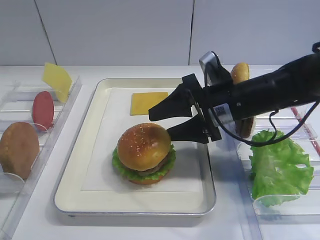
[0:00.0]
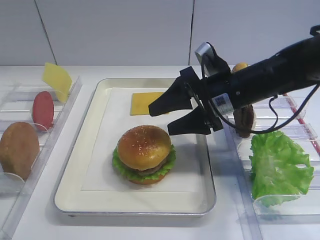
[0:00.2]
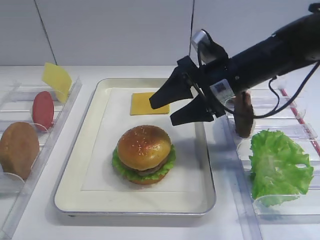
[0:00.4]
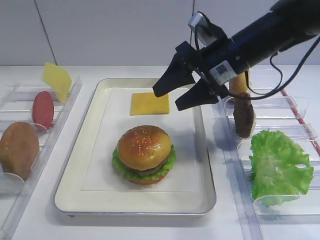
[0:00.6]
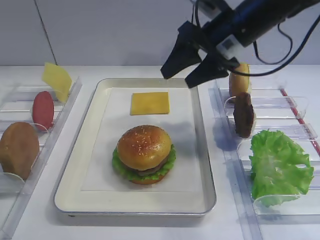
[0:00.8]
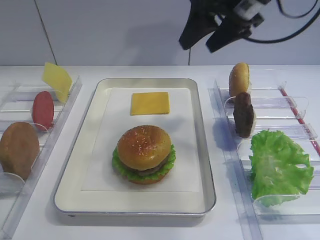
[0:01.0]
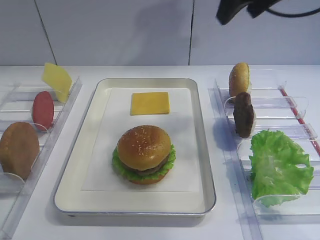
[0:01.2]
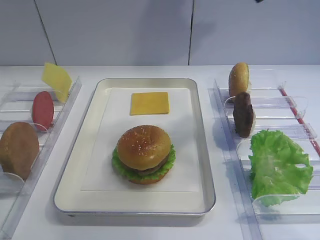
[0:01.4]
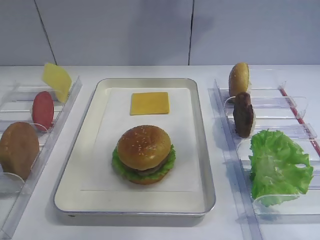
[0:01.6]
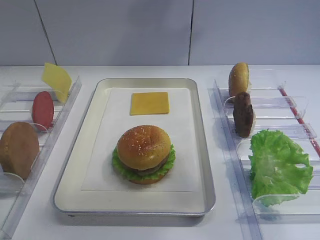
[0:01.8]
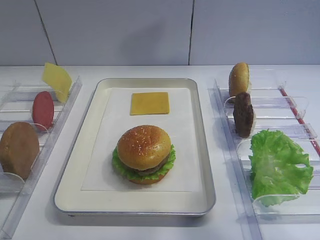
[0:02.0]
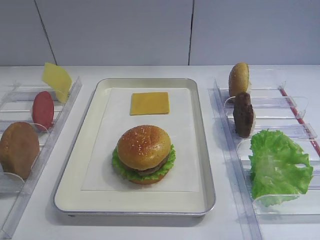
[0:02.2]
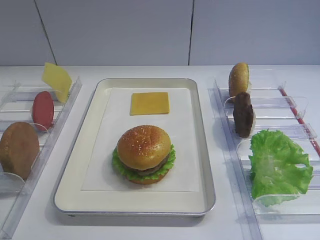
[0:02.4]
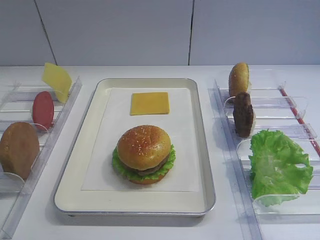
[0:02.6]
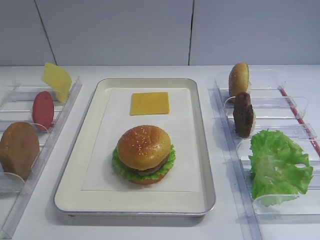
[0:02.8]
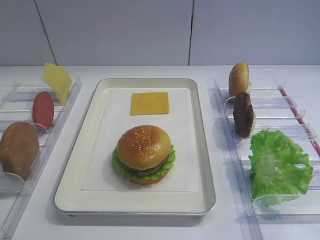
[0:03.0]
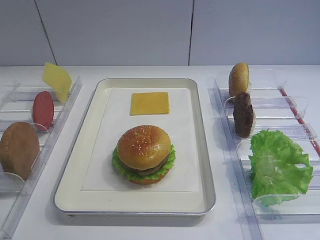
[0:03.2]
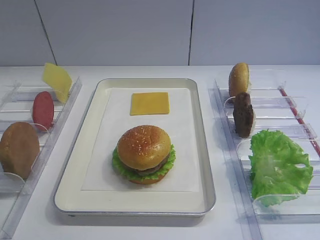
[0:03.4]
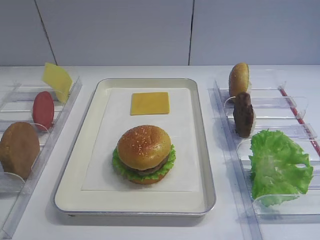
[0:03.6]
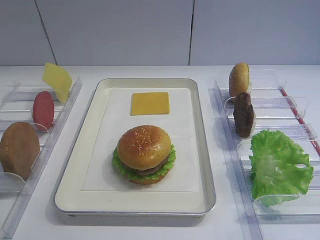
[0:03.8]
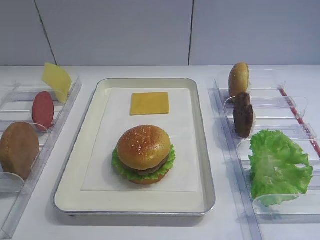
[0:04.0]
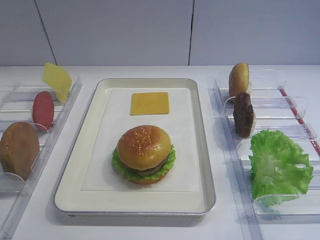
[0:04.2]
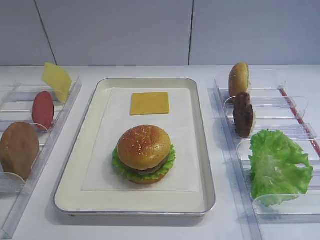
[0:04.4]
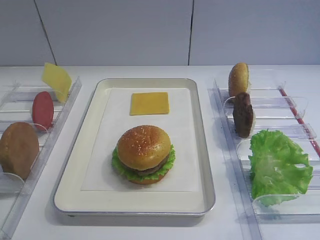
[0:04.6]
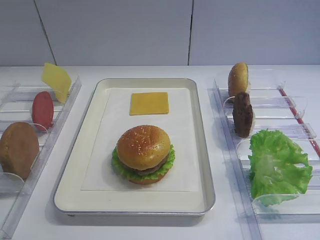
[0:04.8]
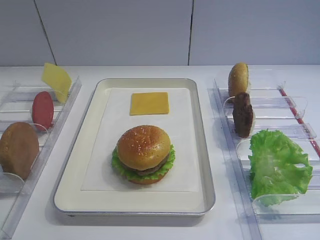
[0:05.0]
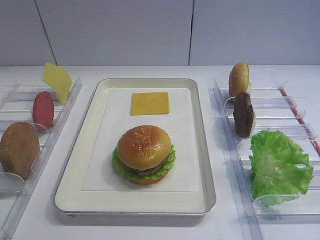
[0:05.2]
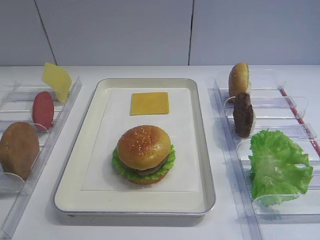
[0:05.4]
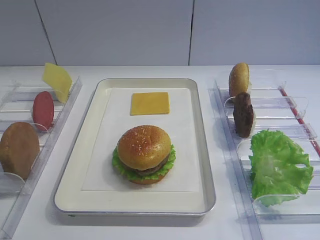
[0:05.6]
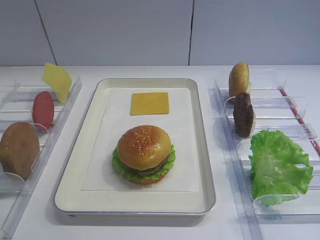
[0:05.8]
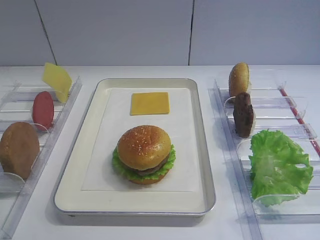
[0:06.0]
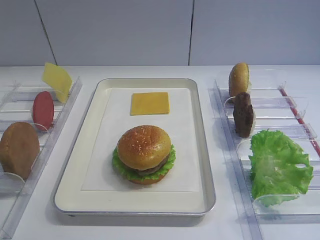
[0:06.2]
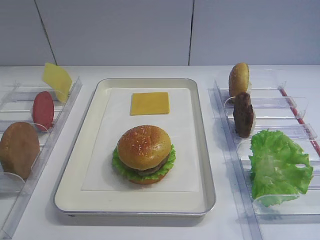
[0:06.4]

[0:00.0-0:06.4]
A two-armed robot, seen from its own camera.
0:00.0 to 0:01.6: The right gripper heads upward, covering some 30 cm.
0:01.6 to 0:03.2: The right gripper travels backward and downward by roughly 35 cm.

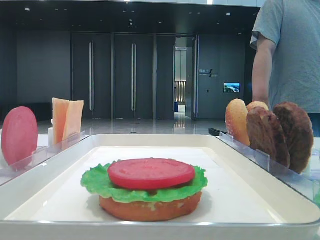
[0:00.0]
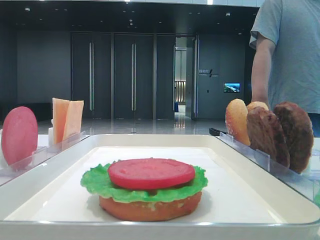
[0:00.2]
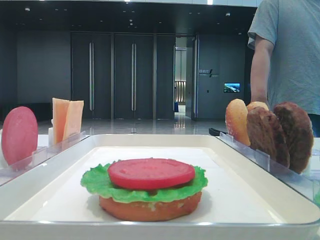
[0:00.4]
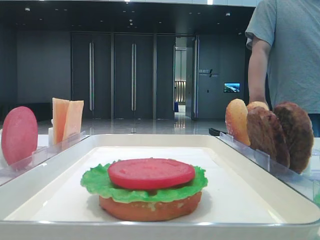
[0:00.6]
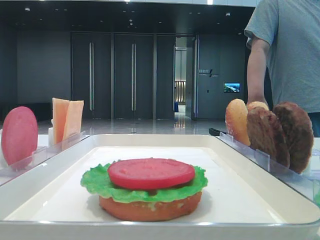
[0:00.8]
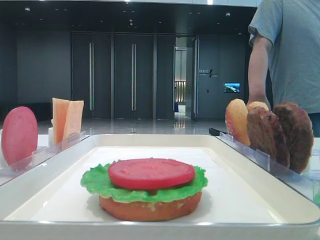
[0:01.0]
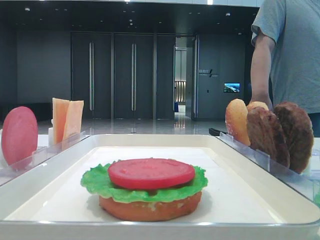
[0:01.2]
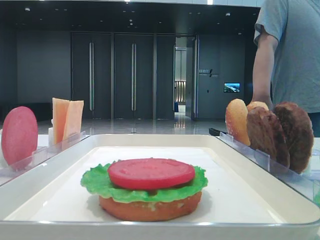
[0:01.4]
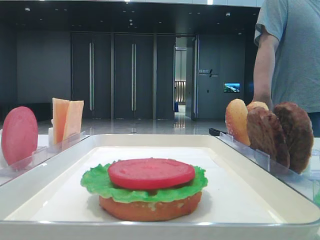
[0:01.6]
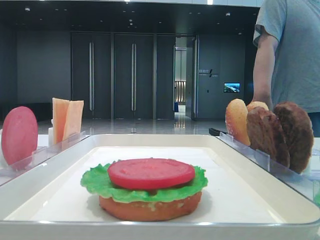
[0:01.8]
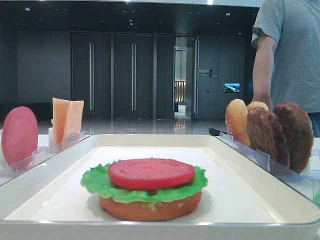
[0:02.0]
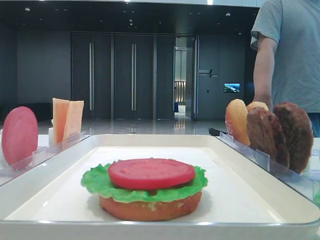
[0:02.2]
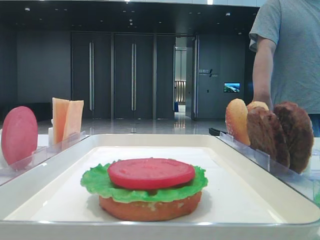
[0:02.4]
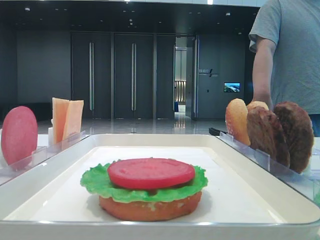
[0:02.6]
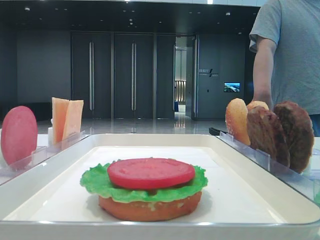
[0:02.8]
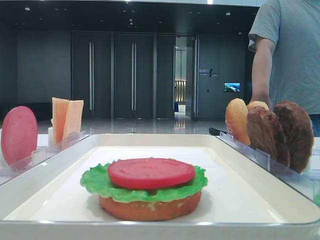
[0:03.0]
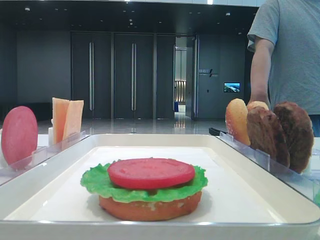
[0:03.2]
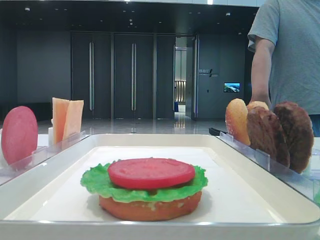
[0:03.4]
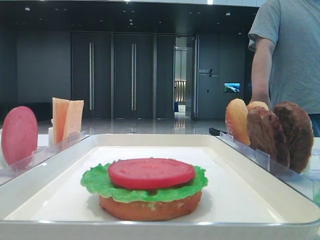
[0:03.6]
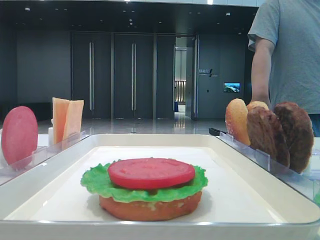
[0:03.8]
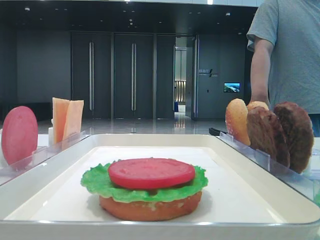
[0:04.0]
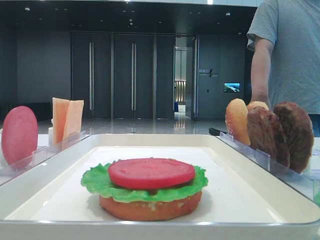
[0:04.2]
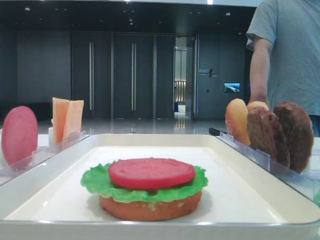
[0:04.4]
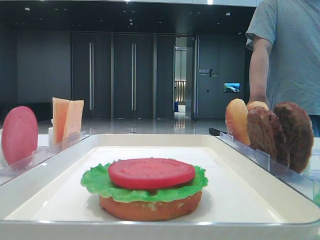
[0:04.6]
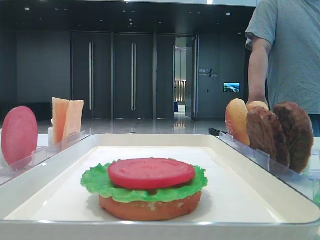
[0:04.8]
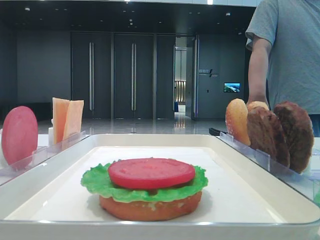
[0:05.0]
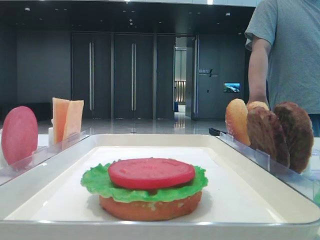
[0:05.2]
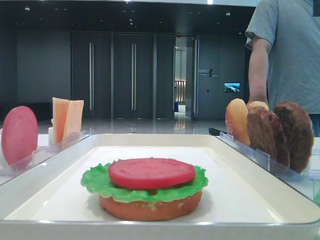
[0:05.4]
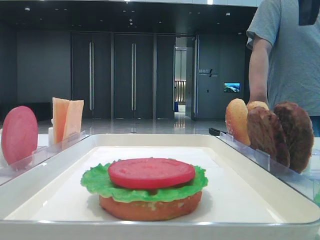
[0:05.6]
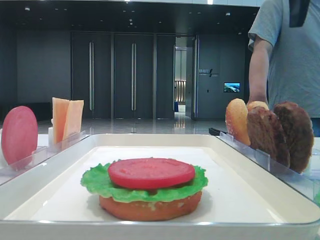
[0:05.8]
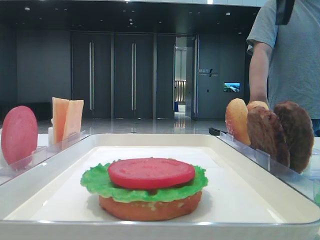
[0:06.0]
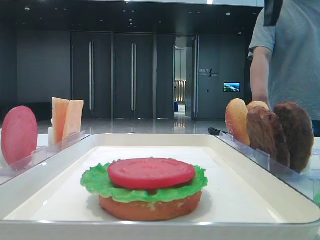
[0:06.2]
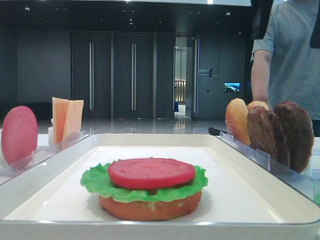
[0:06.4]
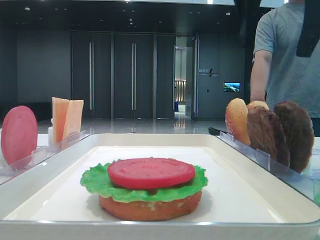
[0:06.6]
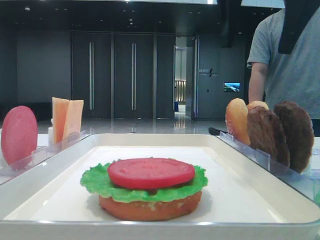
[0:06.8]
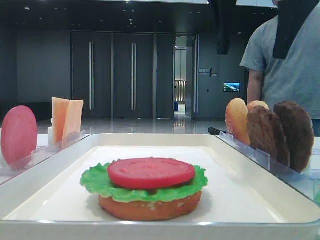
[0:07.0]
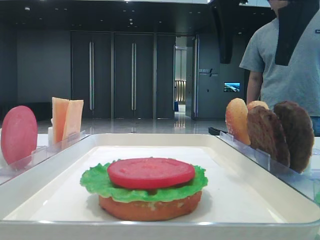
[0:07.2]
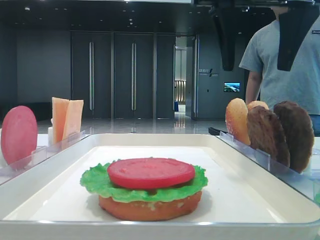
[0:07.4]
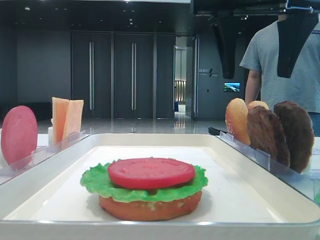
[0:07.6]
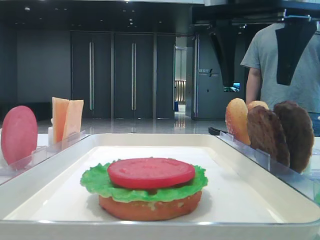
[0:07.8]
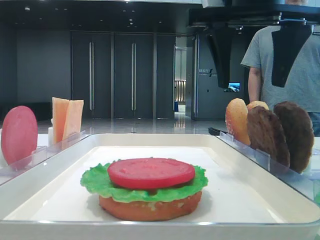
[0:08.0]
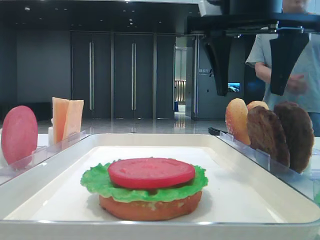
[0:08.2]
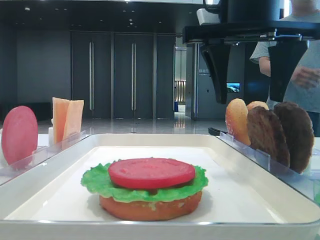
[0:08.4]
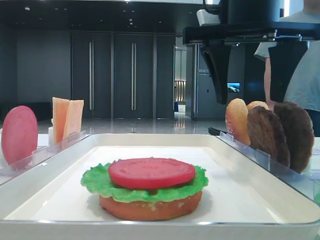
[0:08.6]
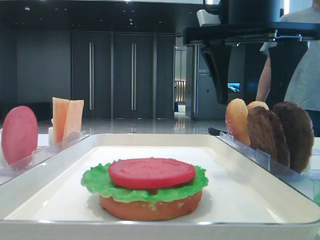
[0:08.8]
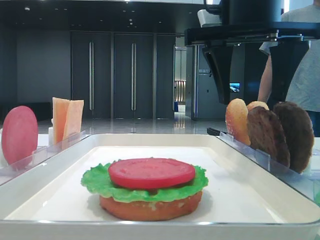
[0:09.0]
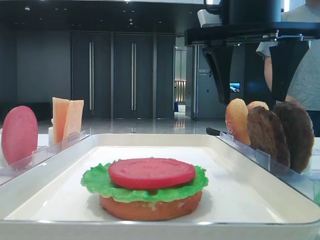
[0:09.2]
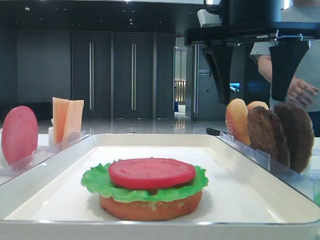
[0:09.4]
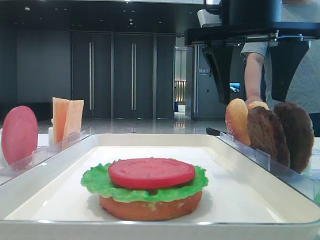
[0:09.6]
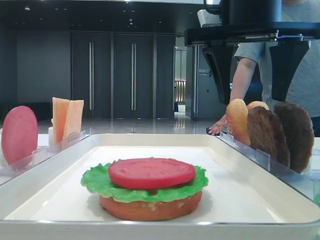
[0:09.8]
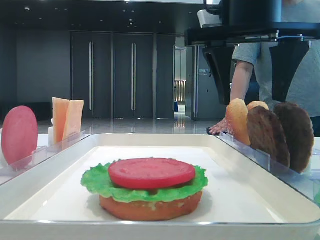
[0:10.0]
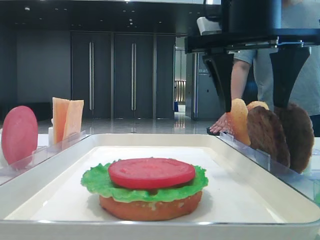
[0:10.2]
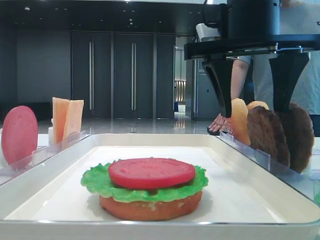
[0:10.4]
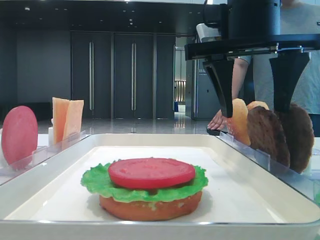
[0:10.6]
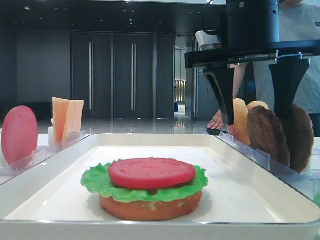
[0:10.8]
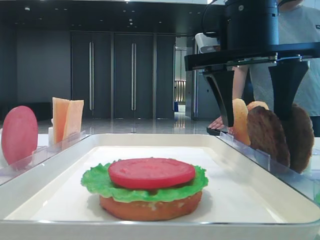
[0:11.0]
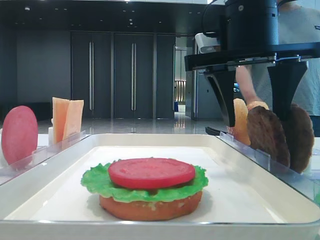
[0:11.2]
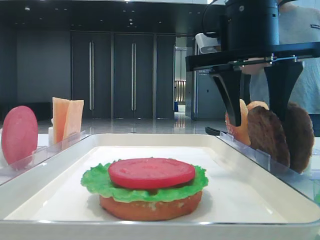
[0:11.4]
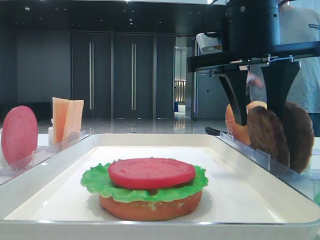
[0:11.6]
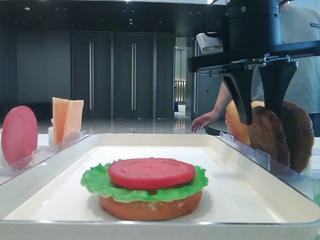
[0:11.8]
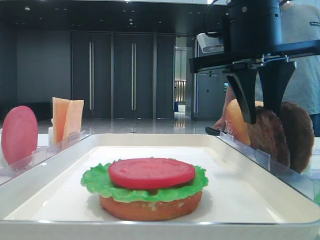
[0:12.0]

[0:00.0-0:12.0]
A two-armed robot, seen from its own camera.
0:01.6 to 0:03.0: The right gripper moves forward, about 20 cm.
0:03.0 to 0:04.4: The right gripper is displaced forward by approximately 5 cm.
0:04.4 to 0:06.0: The right gripper moves to the left, roughly 10 cm.
0:06.0 to 0:07.6: The right gripper goes approximately 10 cm to the left and downward.
0:07.6 to 0:09.0: The grippers stay close to where they were, moving slightly.
0:09.0 to 0:10.4: Both grippers stay about where they are.
0:10.4 to 0:12.0: The right gripper closes up.

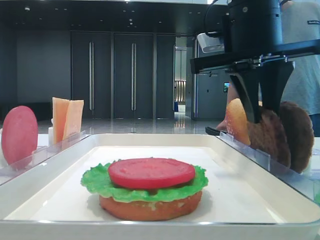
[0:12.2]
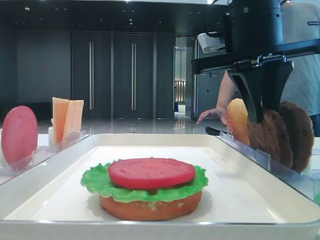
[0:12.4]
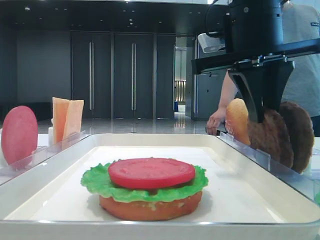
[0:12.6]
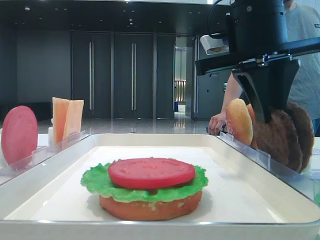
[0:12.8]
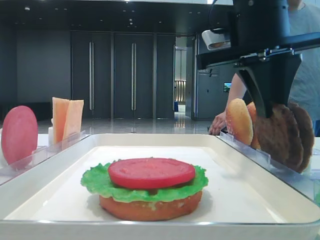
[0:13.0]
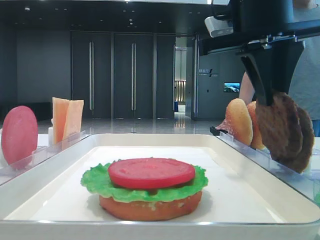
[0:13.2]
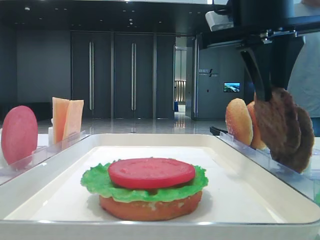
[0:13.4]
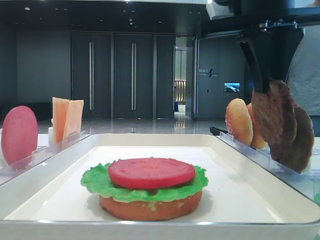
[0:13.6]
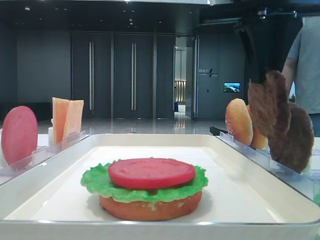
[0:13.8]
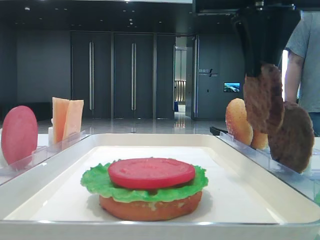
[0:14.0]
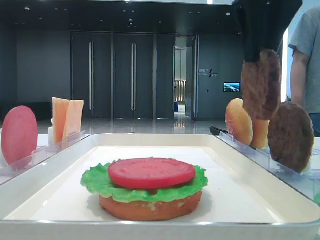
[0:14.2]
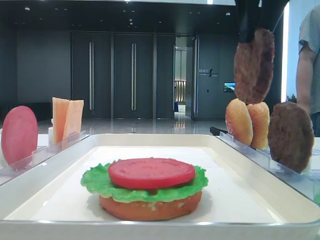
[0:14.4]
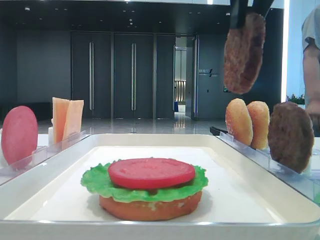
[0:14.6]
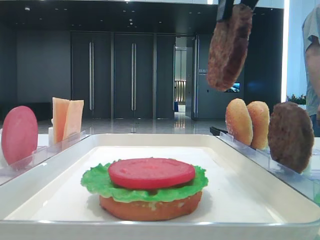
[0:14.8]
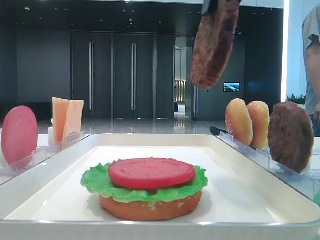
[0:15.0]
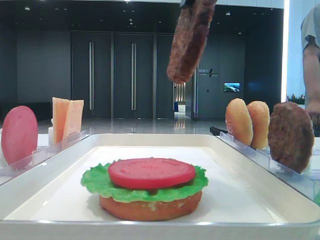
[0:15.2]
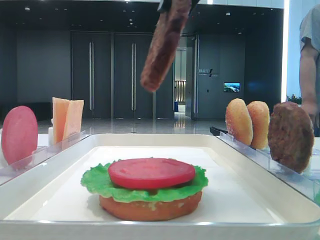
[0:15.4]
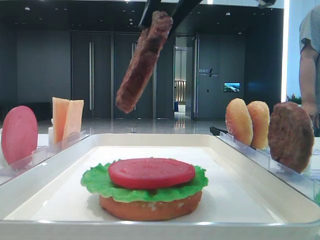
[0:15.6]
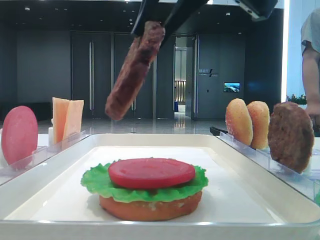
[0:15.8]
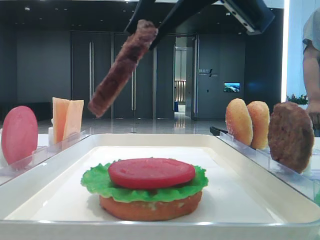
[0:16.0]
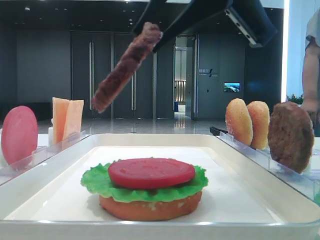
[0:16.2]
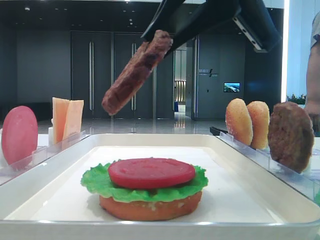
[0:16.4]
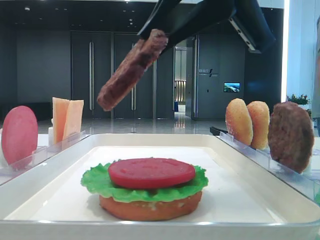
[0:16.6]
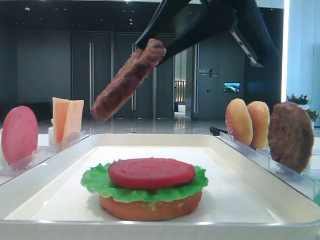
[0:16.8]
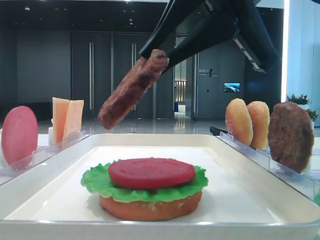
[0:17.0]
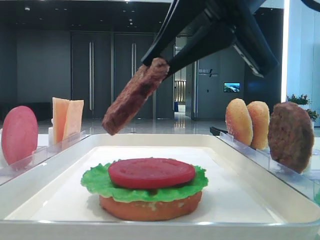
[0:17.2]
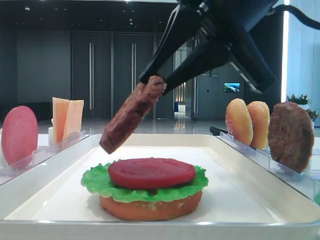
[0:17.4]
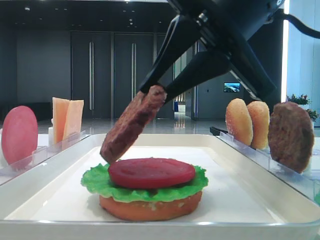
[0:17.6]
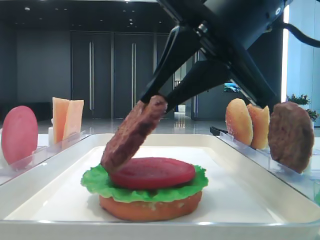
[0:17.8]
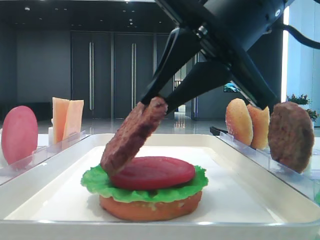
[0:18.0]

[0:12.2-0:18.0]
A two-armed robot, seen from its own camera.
0:12.2 to 0:13.6: The grippers move only a little.
0:13.6 to 0:15.0: The right gripper shifts roughly 10 cm upward and backward.
0:15.0 to 0:16.6: The right gripper travels downward by about 5 cm.
0:16.6 to 0:18.0: The right gripper travels downward by some 5 cm.
